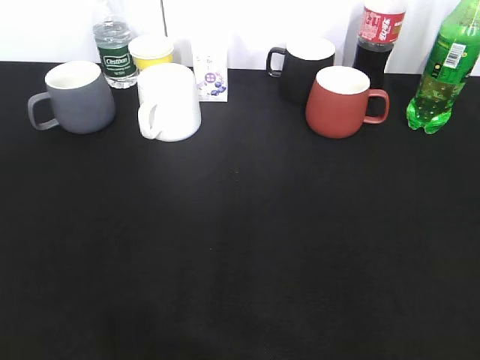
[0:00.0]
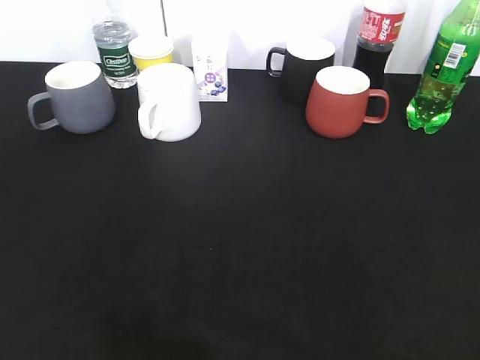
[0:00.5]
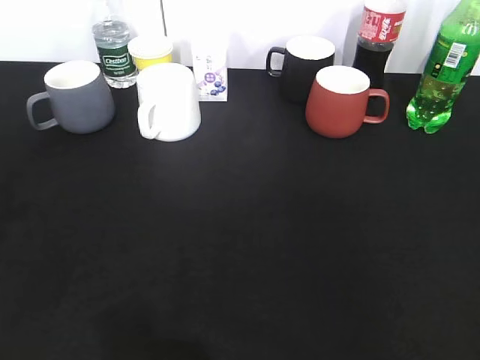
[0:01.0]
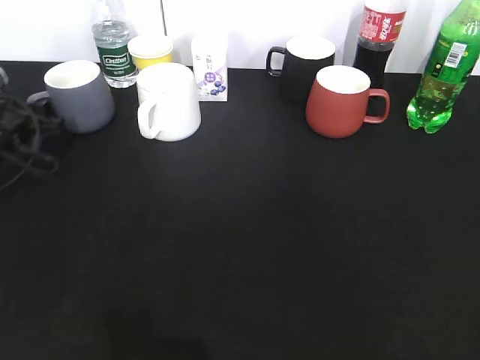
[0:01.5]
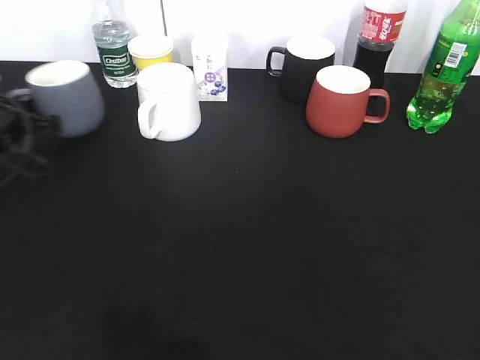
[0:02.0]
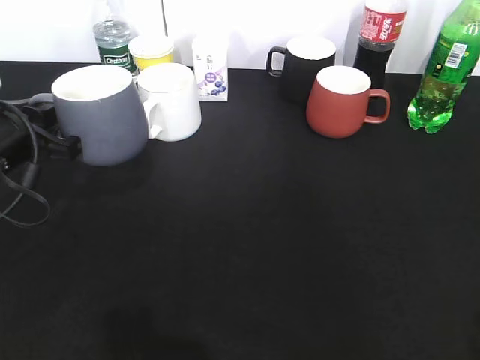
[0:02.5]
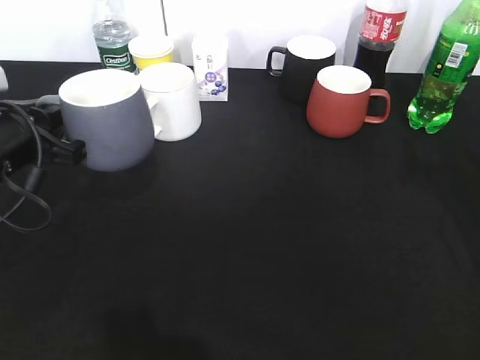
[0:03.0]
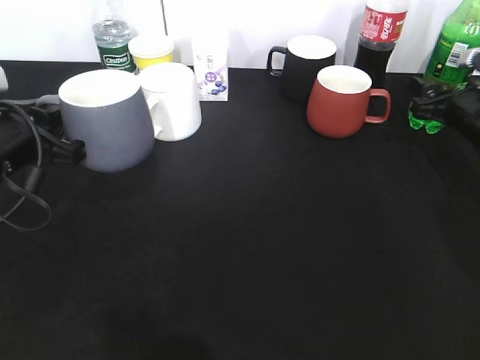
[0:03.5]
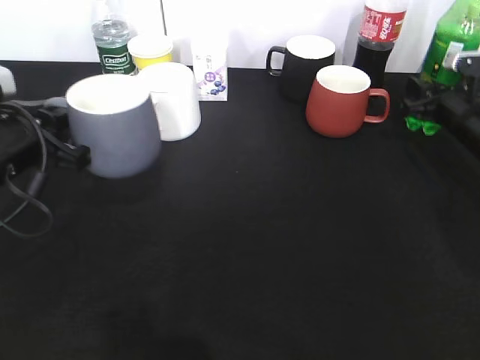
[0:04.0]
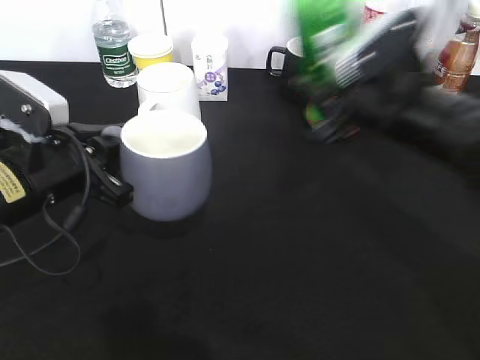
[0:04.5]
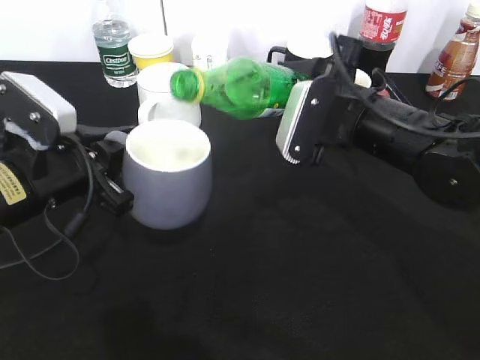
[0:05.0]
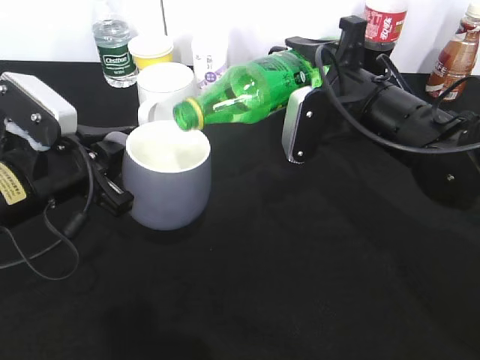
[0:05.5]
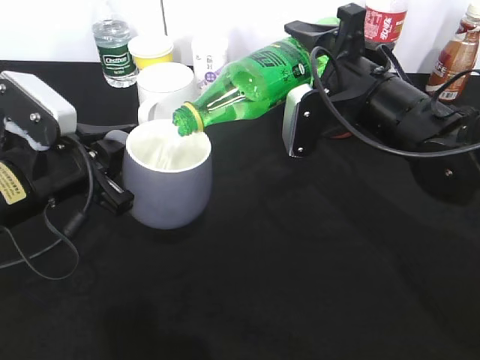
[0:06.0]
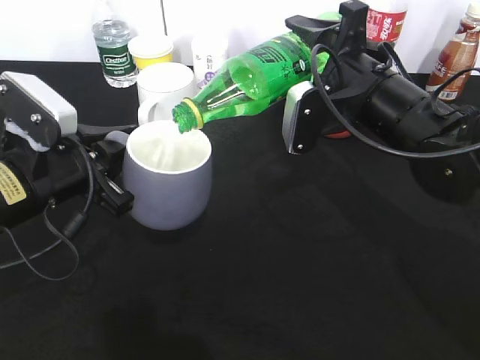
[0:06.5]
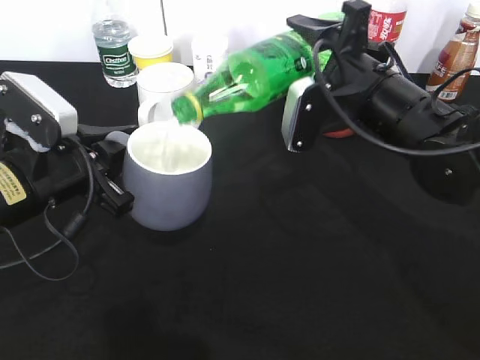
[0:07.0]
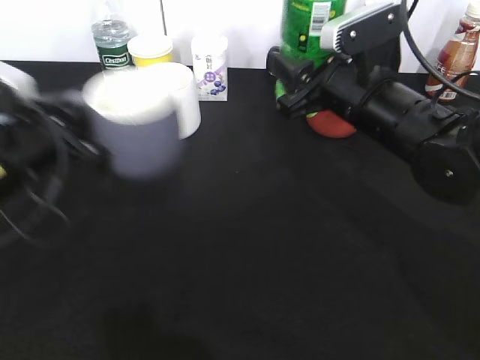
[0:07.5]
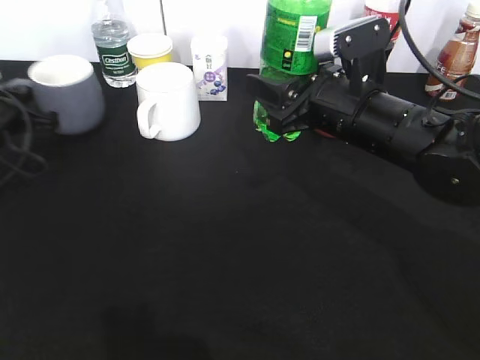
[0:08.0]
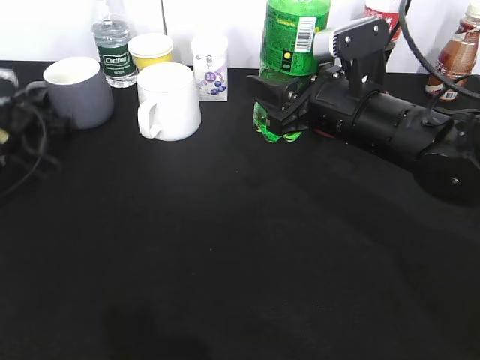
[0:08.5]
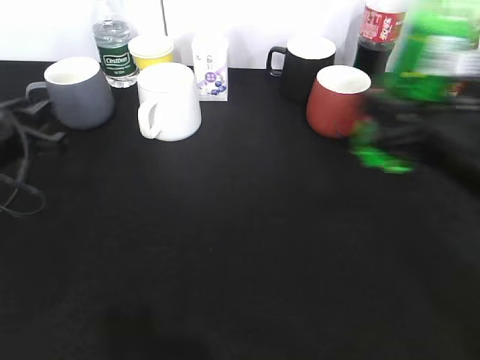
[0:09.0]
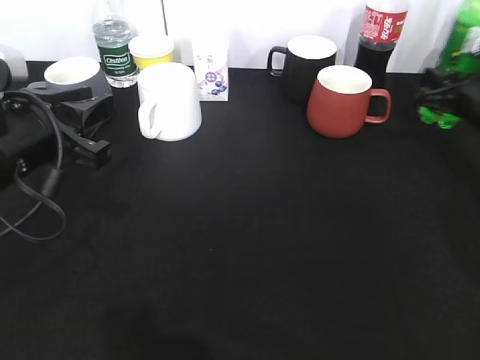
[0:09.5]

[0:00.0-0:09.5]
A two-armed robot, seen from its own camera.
Step, 0.0 to 1.5 s: Grasp the grey cup with left gripper.
Step, 2.0 to 2.5 s: Lift the grey cup with left gripper.
Step, 4.5 to 7.0 s: Pour the sprite from bottle to cup with right gripper.
0.0 to 2.0 s: The left gripper goes approximately 40 cm forward and downward, and closes up.
2.0 to 4.0 s: The right gripper heads forward and downward, covering about 40 cm, and closes up. Meanwhile the left gripper shifts about 10 cm backward and to the right.
4.0 to 5.5 s: The right gripper shifts some 20 cm to the left, backward and upward.
7.5 to 9.5 s: The left gripper moves some 15 cm forward and comes back. The right gripper goes some 20 cm to the right and forward.

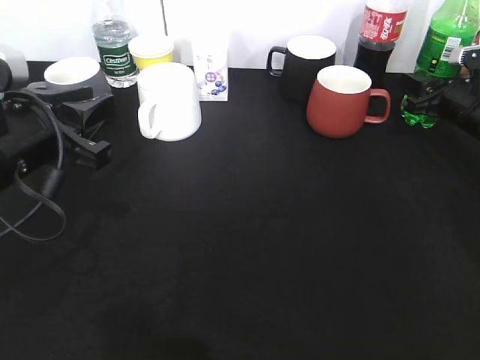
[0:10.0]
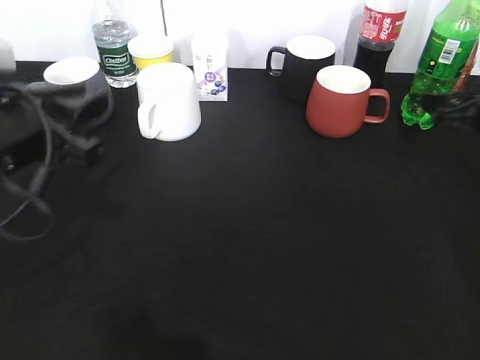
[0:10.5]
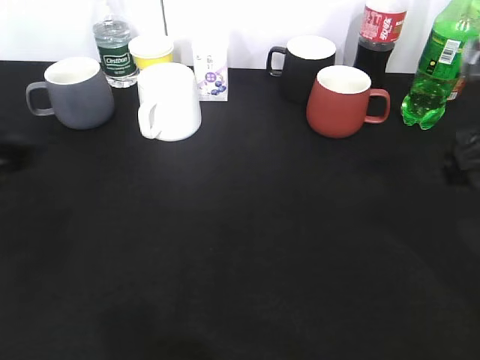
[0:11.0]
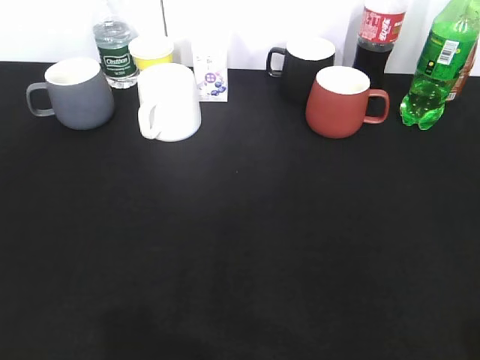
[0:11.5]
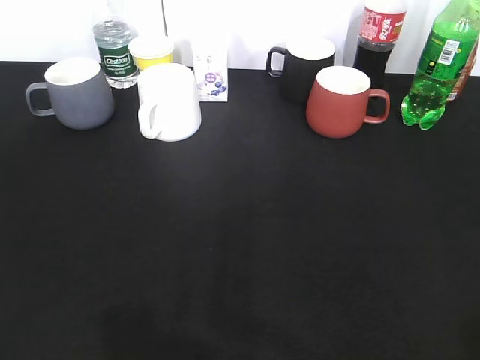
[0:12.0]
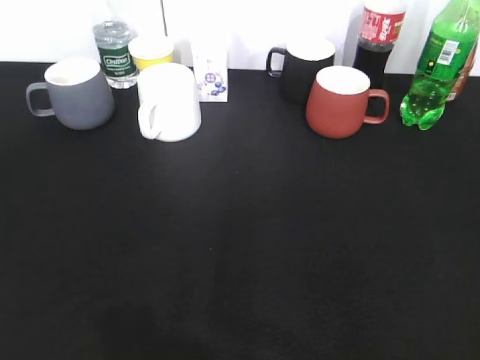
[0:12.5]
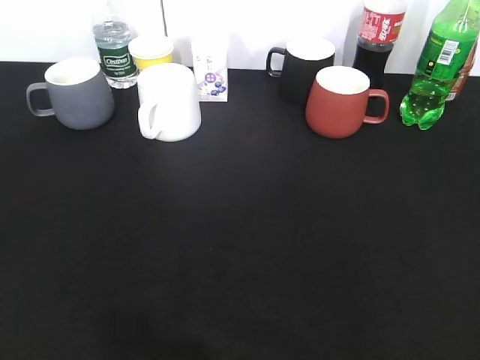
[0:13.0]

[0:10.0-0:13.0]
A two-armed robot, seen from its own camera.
10.0 to 11.5 s: The right gripper heads backward and upward, covering some 40 cm, and opens, while the left gripper goes some 25 cm backward and to the left, and opens its fingers.

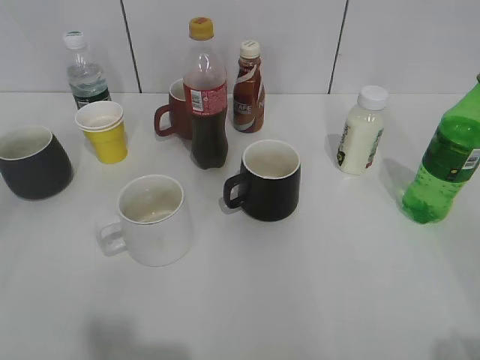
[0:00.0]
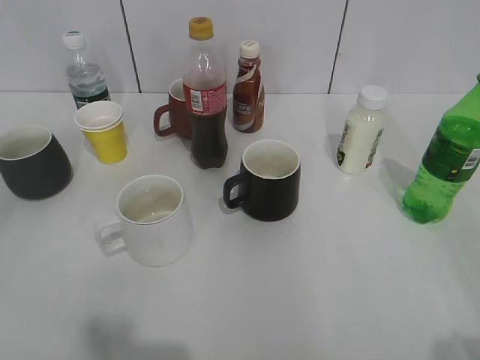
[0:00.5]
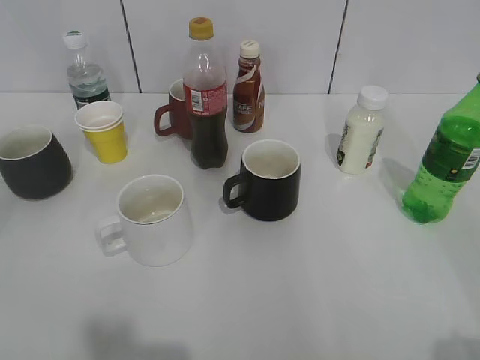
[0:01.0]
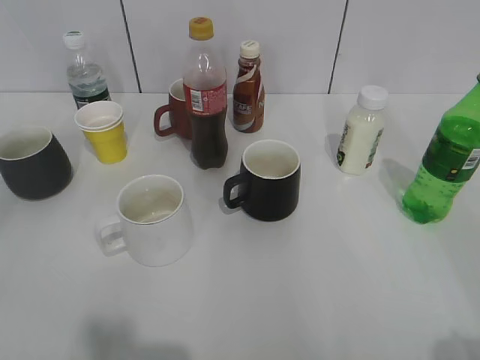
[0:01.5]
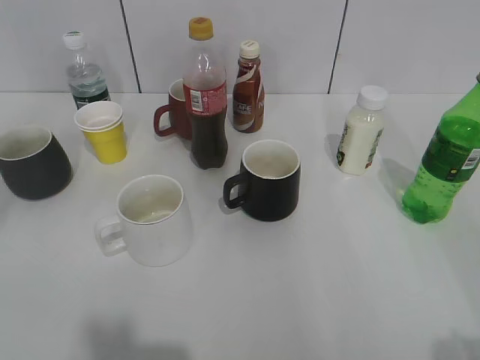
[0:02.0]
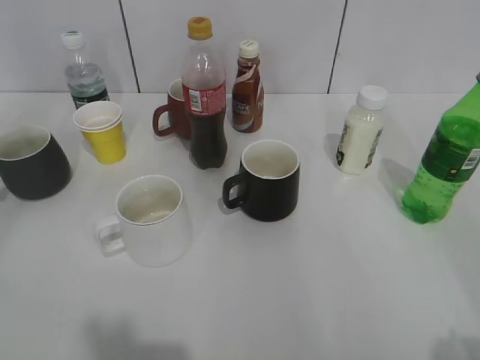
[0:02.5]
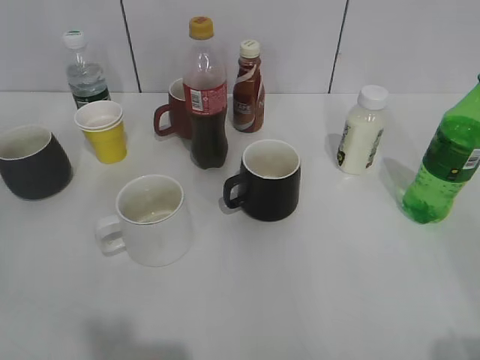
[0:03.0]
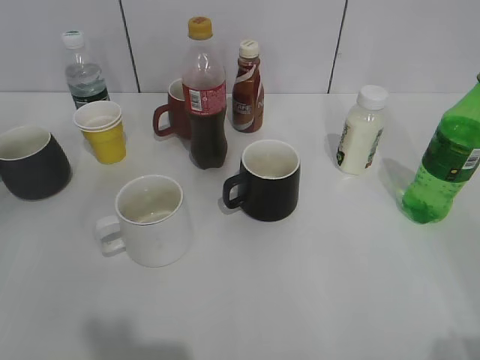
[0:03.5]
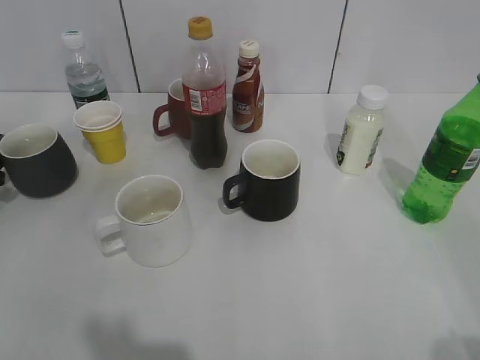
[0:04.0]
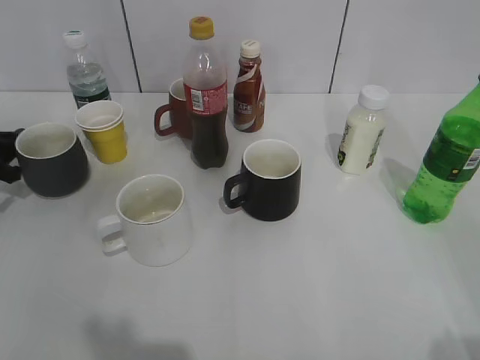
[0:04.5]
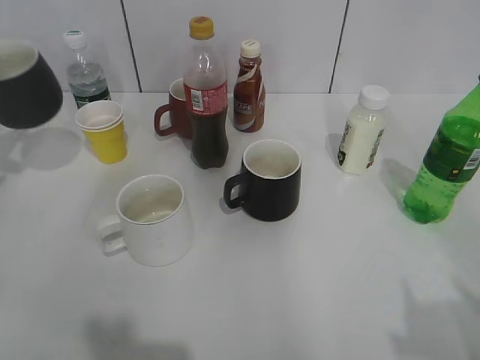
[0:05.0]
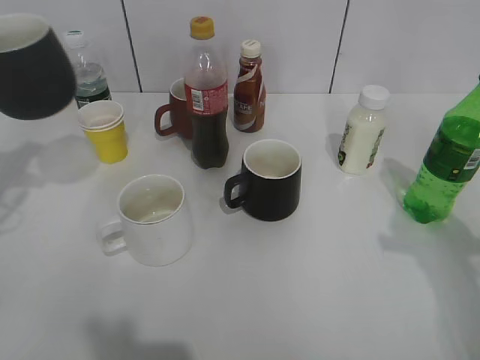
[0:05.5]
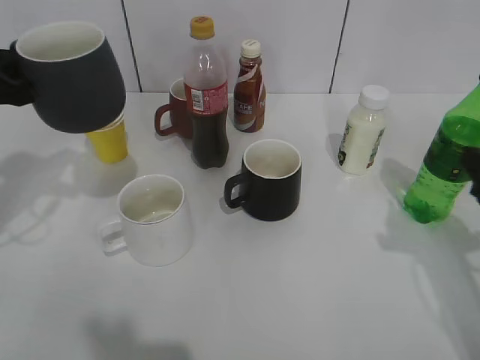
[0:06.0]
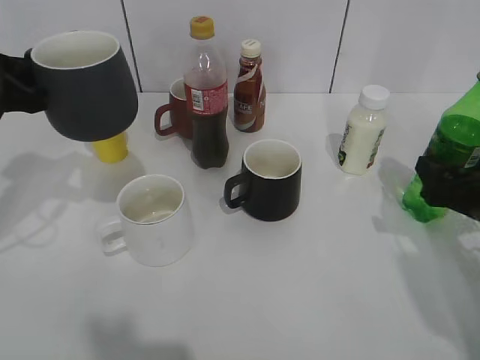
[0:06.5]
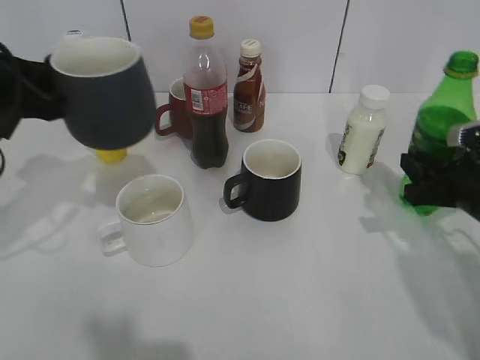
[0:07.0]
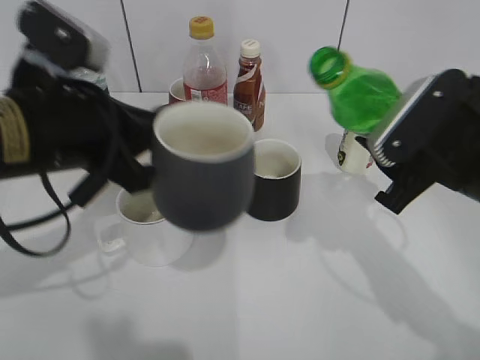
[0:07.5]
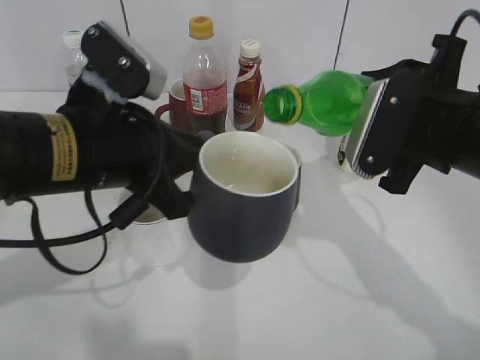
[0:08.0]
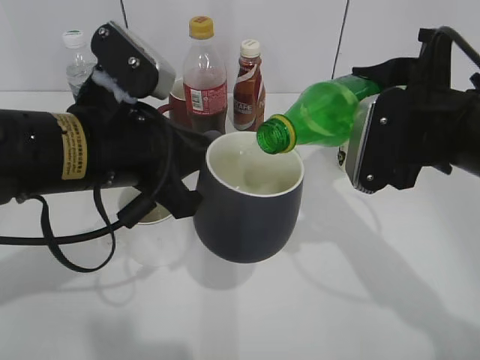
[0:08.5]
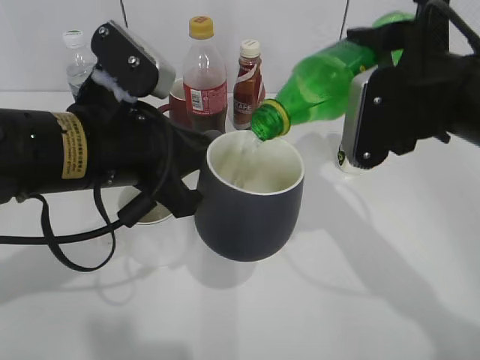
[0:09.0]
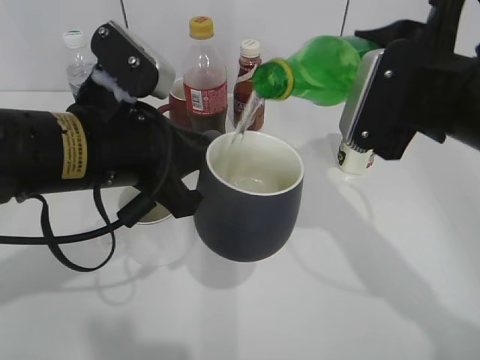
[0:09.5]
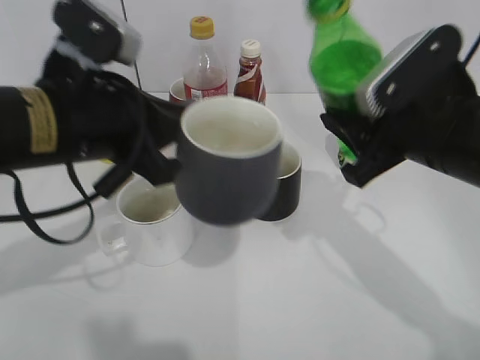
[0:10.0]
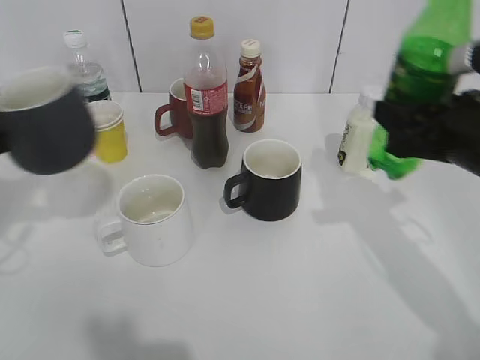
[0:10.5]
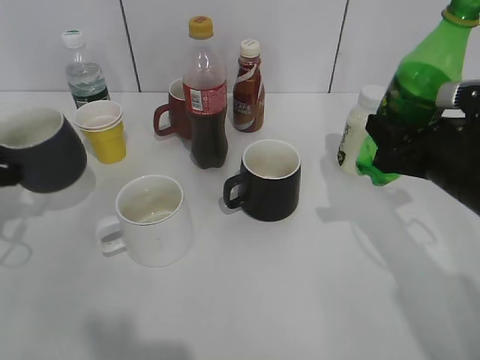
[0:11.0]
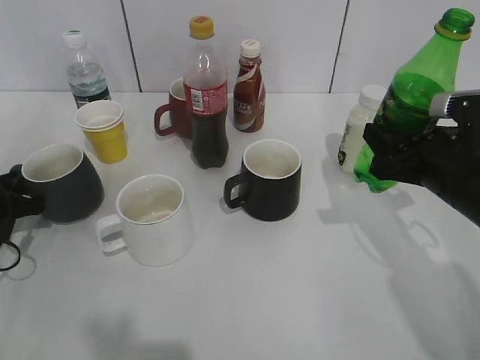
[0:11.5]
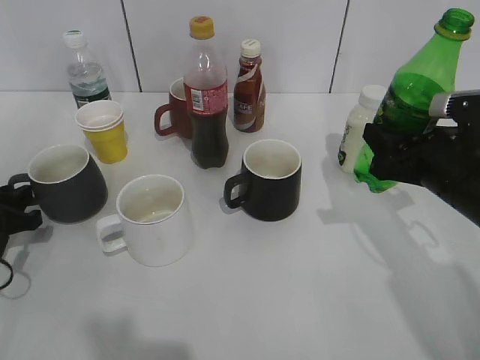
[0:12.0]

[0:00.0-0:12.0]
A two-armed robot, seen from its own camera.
Step, 4.5 to 5.0 s: Lift the grey cup with left gripper.
Step, 5.5 to 6.5 s: Grasp the bottle with sprite with right gripper.
Step, 7.0 to 9.5 s: Pour the sprite from bottle to cup with right gripper.
2.0 to 4.0 s: The left gripper is displaced forward and downward by some 40 cm.
4.0 to 6.0 s: The left gripper is displaced upward, to the right and backward by some 25 cm, and closes its fingers. The right gripper goes some 20 cm forward and downward.
6.0 to 8.0 s: The right gripper goes roughly 10 cm to the left, and closes up. Meanwhile the left gripper heads to the right, covering roughly 15 cm.
10.0 to 12.0 s: The left gripper heads to the left and downward, covering approximately 25 cm; the right gripper moves downward and to the right, roughly 10 cm.

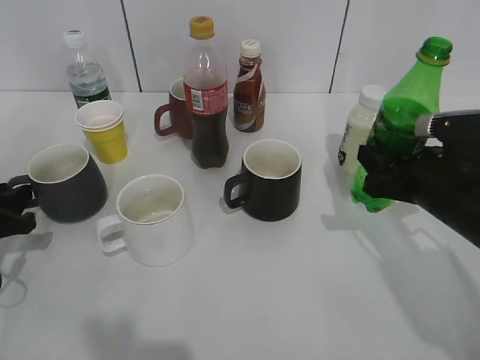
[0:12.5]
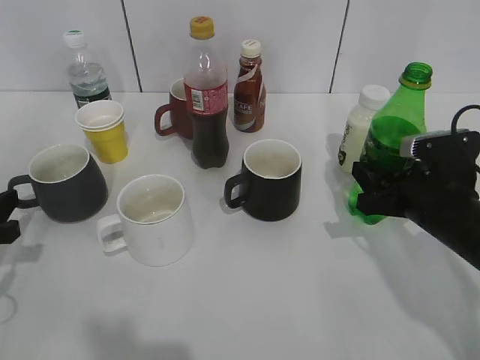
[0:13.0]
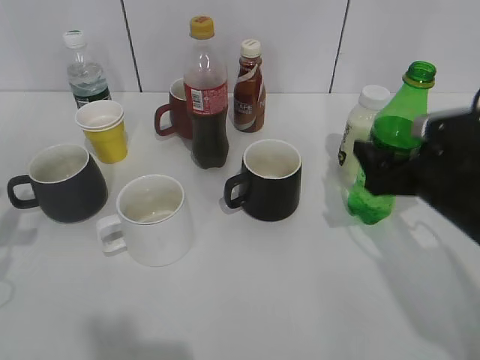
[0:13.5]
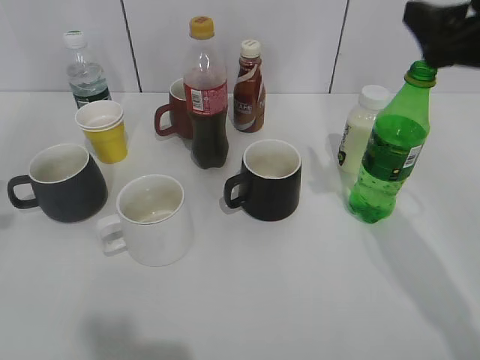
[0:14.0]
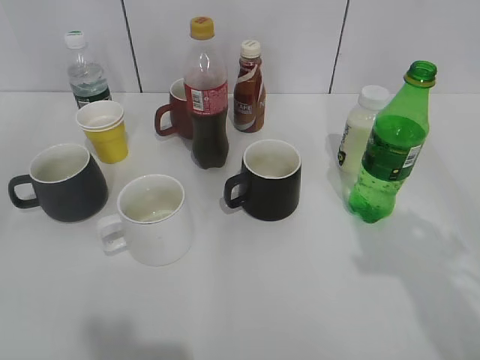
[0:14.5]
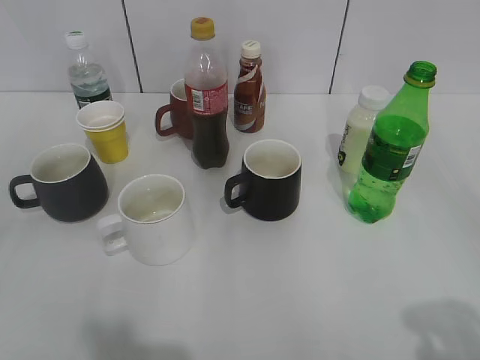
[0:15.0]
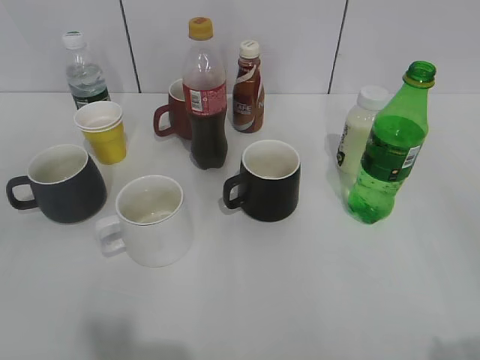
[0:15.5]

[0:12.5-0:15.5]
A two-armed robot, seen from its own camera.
12.5 to 14.0 s: The two grippers go about 15 cm upward. The right gripper opens its fingers.
14.0 to 15.5 s: Both grippers travel together backward, some 25 cm.
